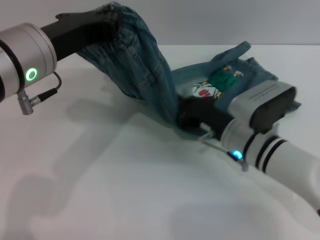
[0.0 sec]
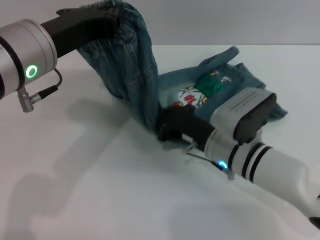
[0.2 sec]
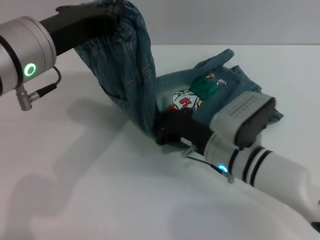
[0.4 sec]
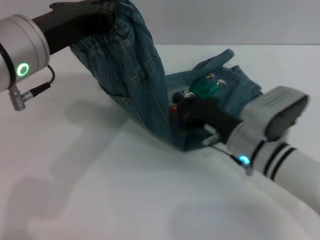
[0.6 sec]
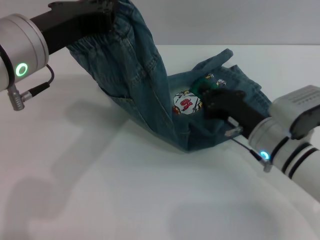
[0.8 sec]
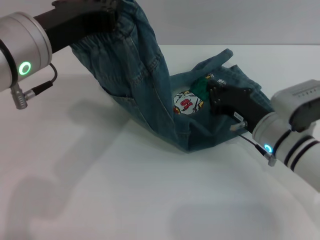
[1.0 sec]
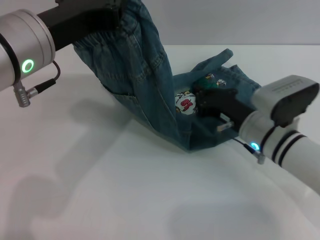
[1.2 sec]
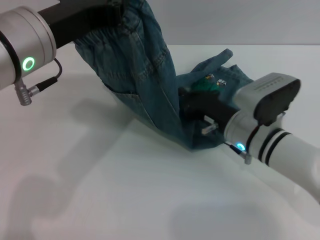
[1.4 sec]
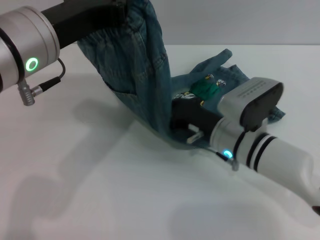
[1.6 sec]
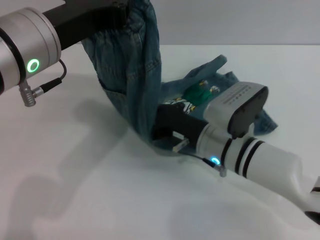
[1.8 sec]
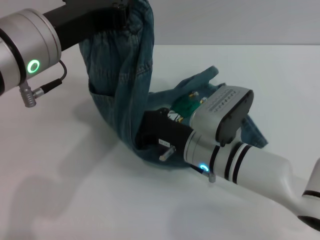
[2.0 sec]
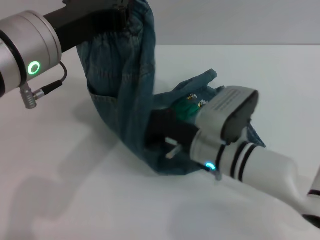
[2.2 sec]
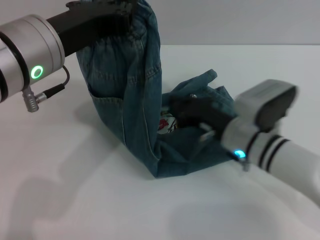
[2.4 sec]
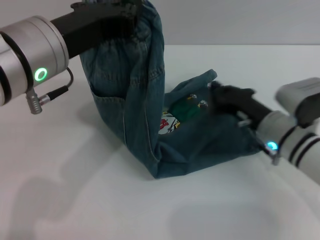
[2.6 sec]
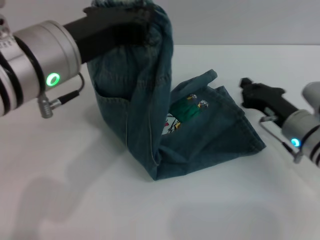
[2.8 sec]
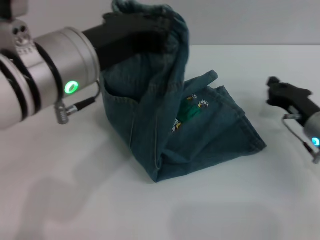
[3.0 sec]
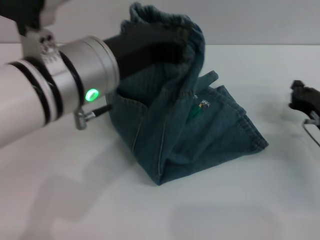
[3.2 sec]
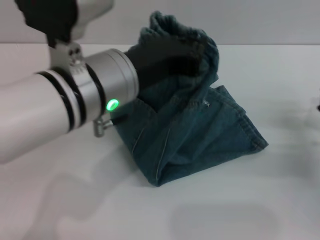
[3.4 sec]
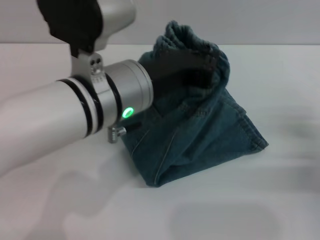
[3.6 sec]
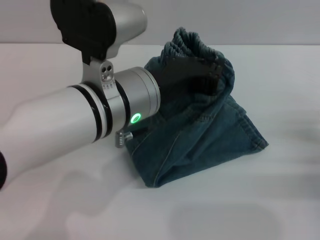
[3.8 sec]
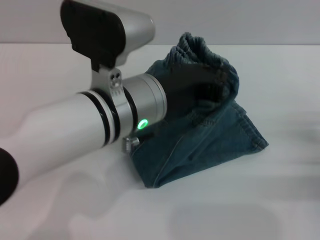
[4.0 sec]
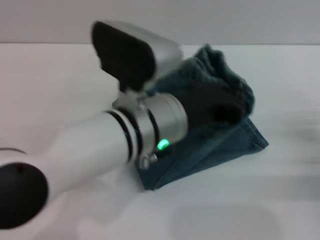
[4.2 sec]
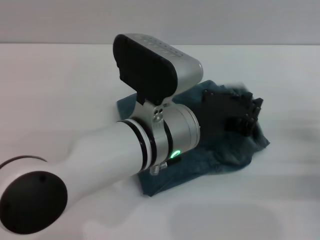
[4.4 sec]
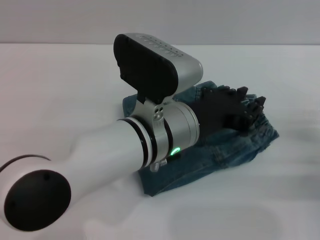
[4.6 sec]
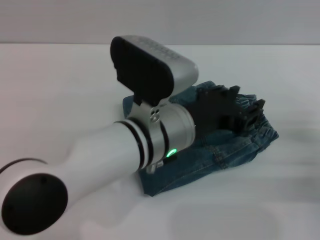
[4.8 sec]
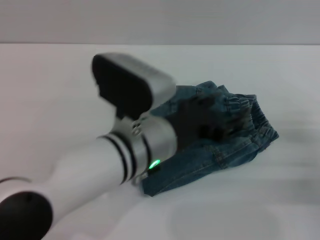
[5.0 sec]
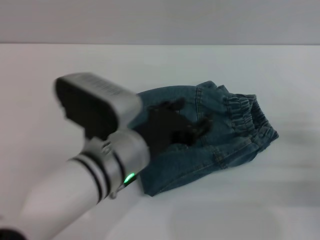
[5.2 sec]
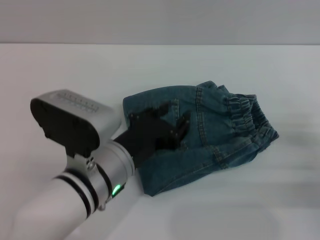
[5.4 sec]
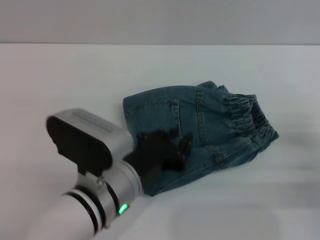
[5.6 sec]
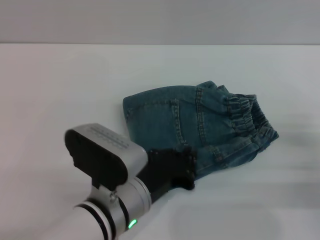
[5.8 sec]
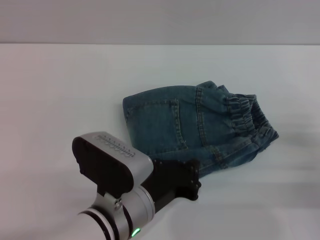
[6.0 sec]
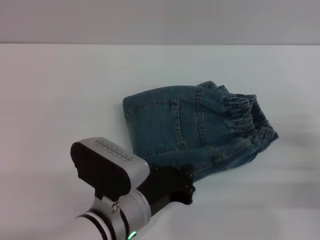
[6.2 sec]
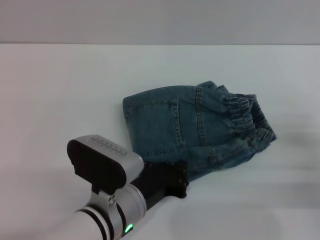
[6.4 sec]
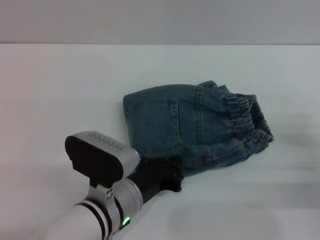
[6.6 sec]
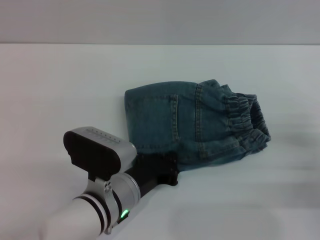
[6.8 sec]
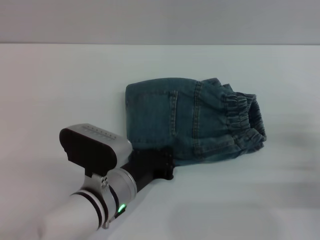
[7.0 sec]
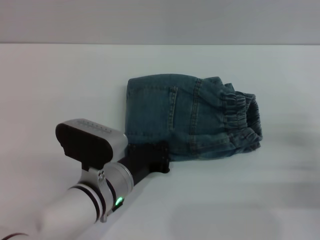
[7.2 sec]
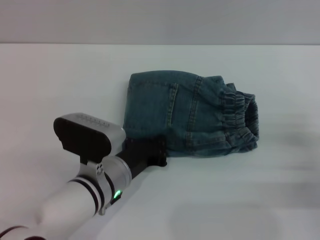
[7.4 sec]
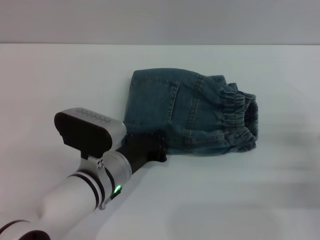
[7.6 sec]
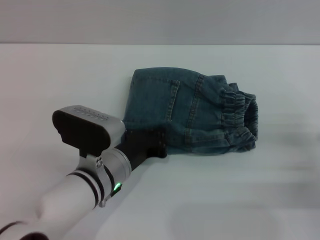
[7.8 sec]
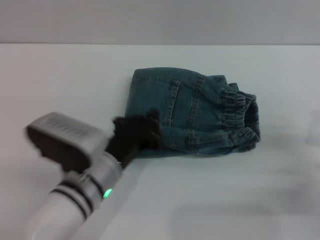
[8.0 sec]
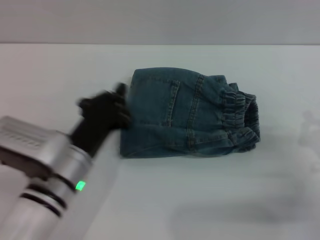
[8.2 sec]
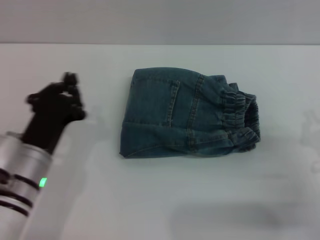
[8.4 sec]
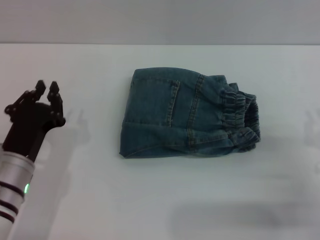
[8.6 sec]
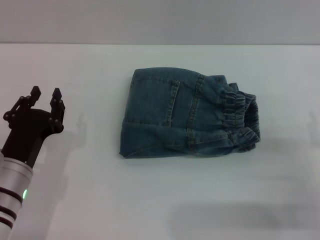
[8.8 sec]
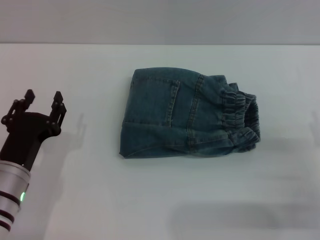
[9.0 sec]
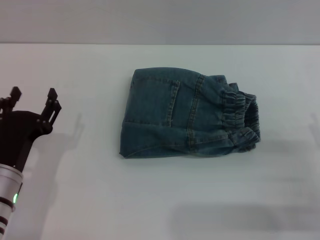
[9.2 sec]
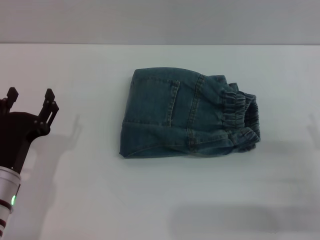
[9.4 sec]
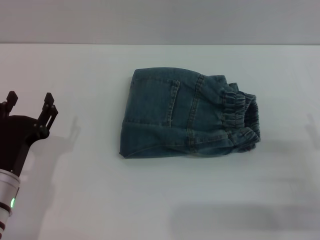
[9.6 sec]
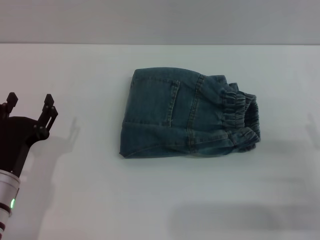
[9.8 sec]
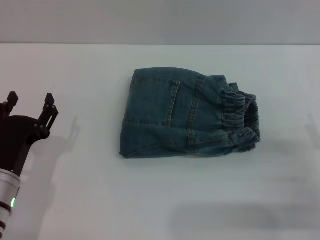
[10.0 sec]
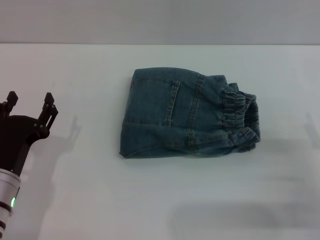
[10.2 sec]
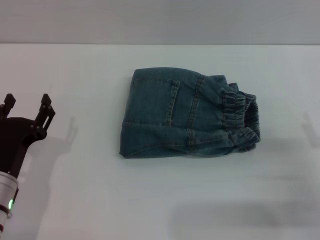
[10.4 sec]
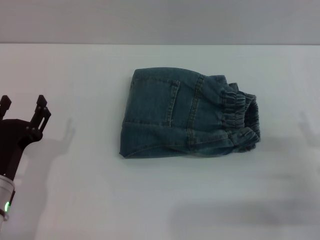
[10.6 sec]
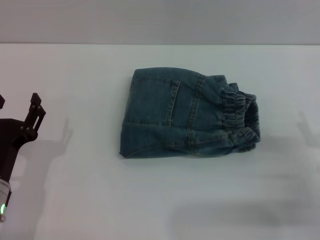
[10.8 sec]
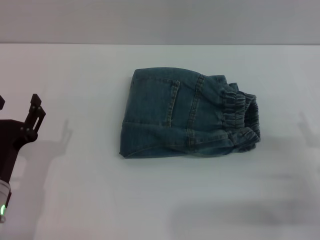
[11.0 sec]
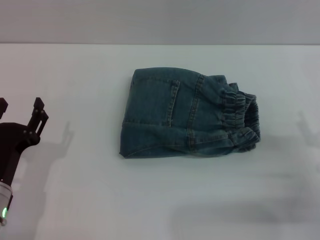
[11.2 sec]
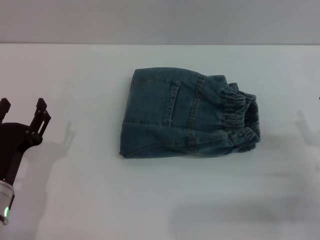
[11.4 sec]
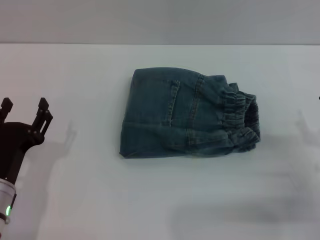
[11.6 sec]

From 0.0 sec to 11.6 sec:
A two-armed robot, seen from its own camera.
Step, from 0.0 sec to 4.8 sec: Fold the pants from left to right with the left gripper.
Step, from 5.0 sec to 8.0 sec: Place the folded trousers onto the center area with the left grippers.
From 0.0 sec to 1.4 sec: There are only small adjustments of the grippers.
From 1.4 sec to 2.8 sec: The right gripper shifts roughly 10 cm to the right.
From 2.8 sec to 4.4 sec: The right gripper travels to the right and backward by some 15 cm, while the left gripper goes some 15 cm to the right and downward.
From 4.4 sec to 5.8 sec: The left gripper heads downward, to the left and backward, covering approximately 10 cm, and opens and closes again.
From 5.8 sec to 7.2 sec: The left gripper shifts by approximately 5 cm.
From 7.2 sec to 8.8 sec: The left gripper goes some 10 cm to the left.
From 8.8 sec to 10.2 sec: The left gripper opens its fingers.
From 10.2 sec to 11.6 sec: There are only small adjustments of the grippers.

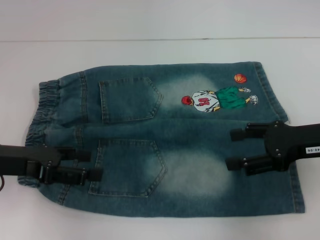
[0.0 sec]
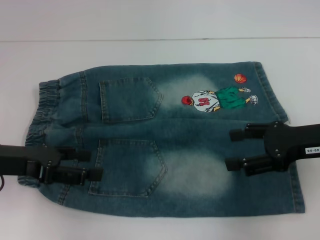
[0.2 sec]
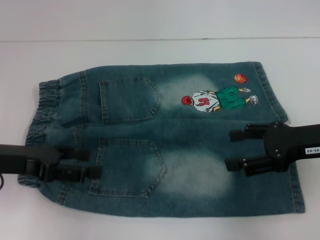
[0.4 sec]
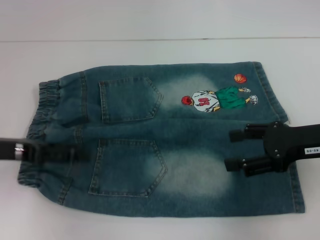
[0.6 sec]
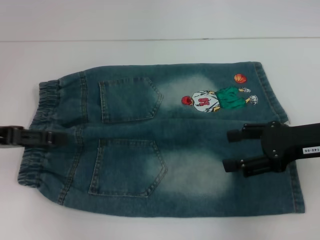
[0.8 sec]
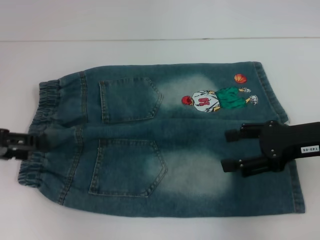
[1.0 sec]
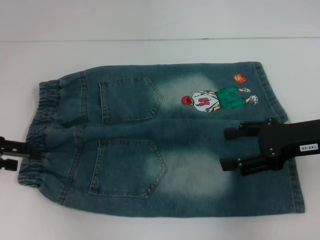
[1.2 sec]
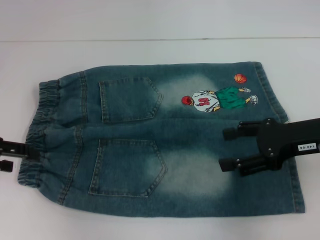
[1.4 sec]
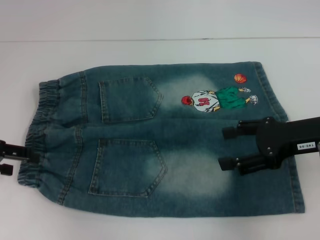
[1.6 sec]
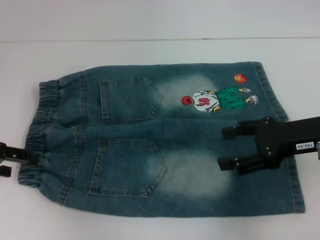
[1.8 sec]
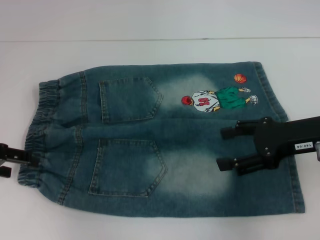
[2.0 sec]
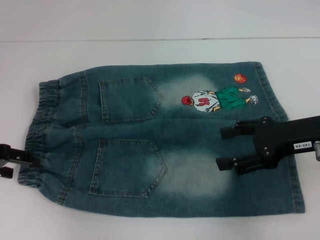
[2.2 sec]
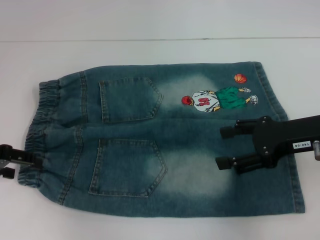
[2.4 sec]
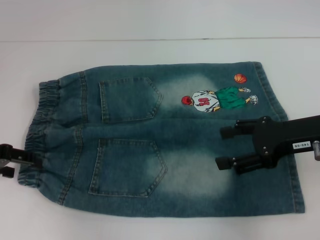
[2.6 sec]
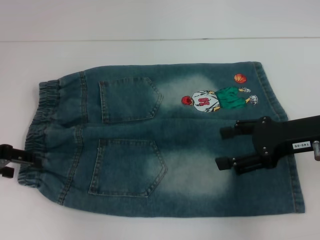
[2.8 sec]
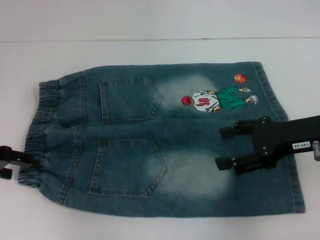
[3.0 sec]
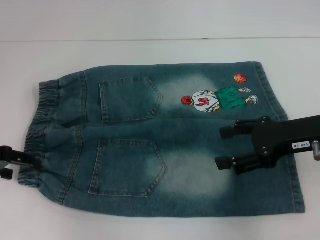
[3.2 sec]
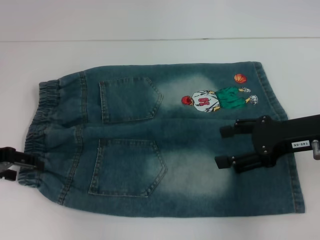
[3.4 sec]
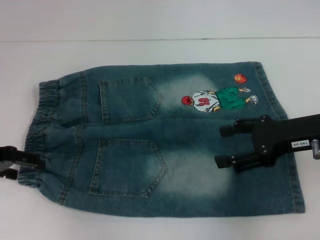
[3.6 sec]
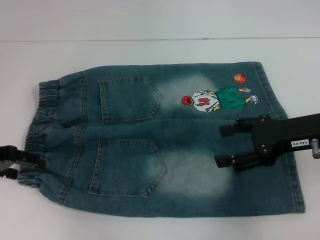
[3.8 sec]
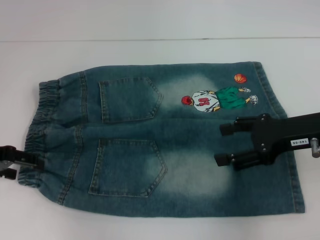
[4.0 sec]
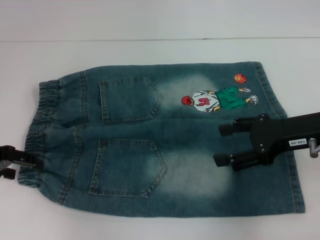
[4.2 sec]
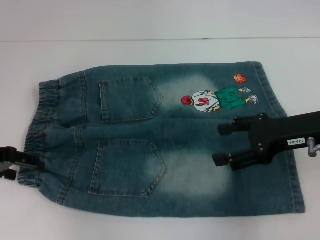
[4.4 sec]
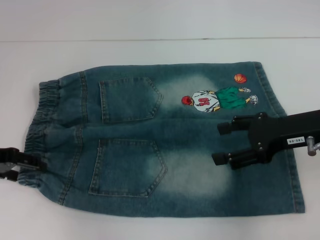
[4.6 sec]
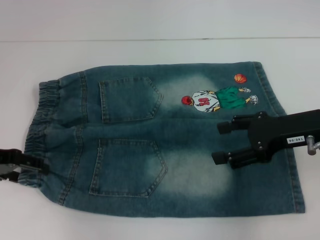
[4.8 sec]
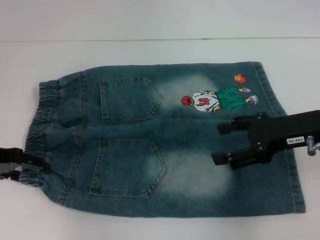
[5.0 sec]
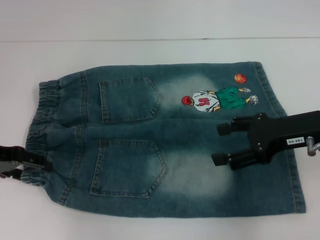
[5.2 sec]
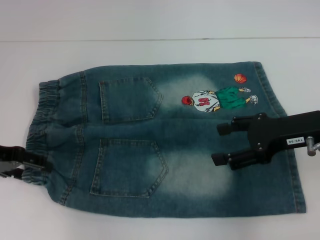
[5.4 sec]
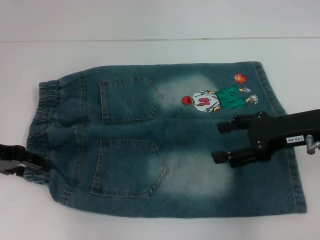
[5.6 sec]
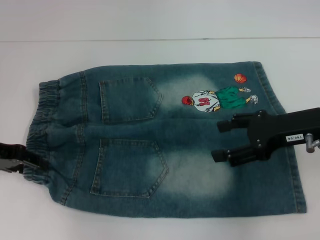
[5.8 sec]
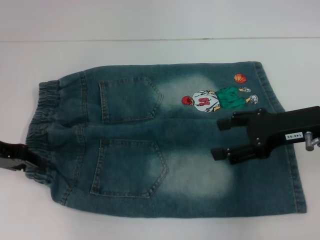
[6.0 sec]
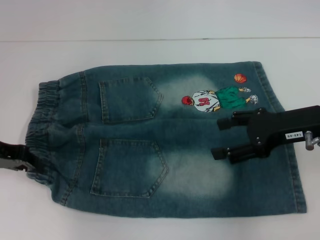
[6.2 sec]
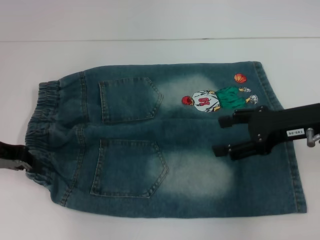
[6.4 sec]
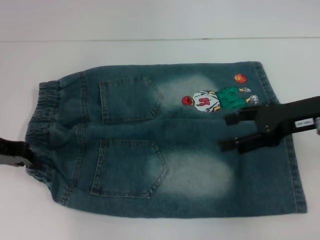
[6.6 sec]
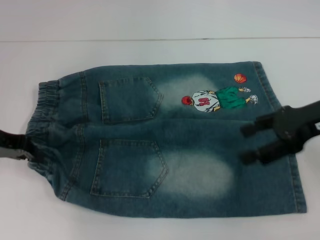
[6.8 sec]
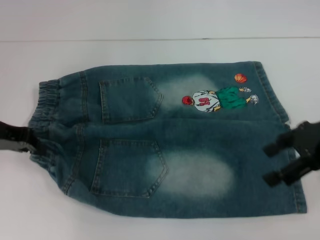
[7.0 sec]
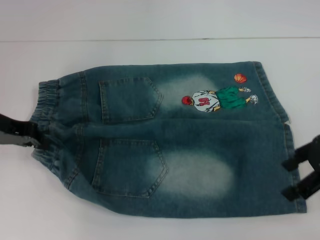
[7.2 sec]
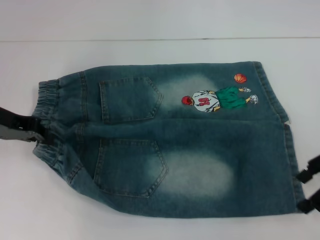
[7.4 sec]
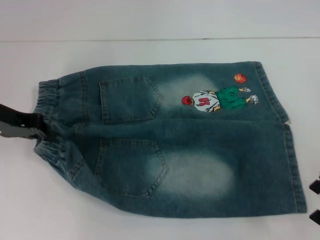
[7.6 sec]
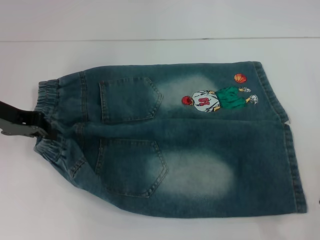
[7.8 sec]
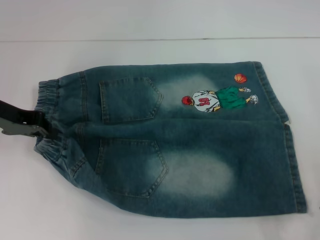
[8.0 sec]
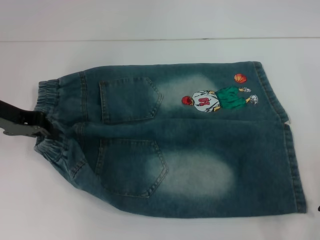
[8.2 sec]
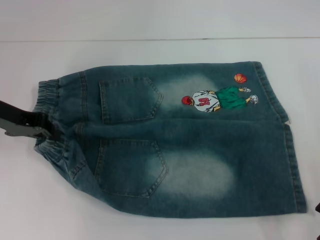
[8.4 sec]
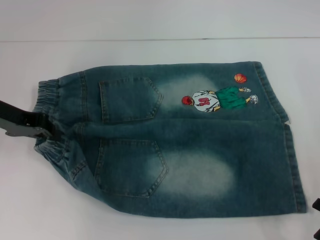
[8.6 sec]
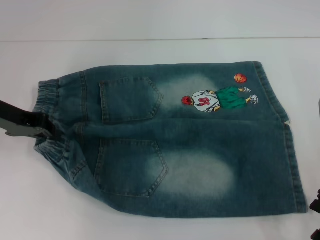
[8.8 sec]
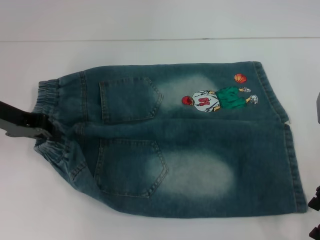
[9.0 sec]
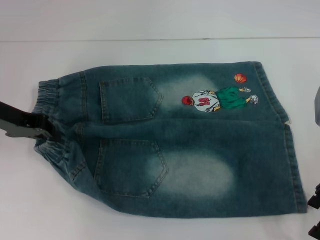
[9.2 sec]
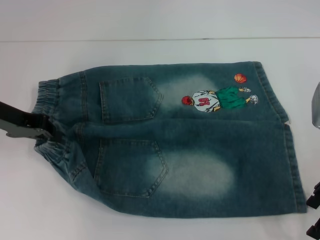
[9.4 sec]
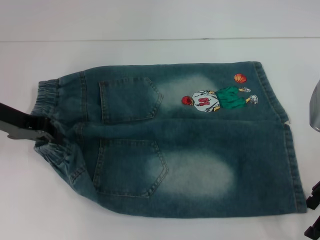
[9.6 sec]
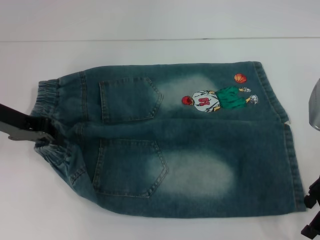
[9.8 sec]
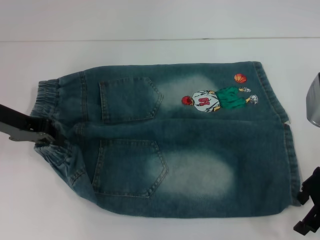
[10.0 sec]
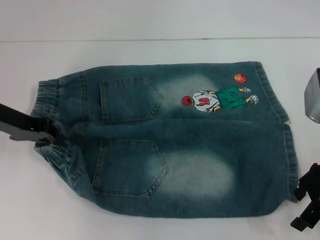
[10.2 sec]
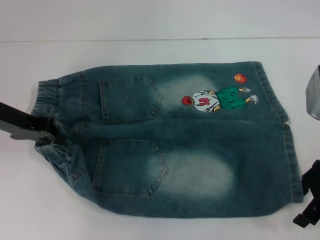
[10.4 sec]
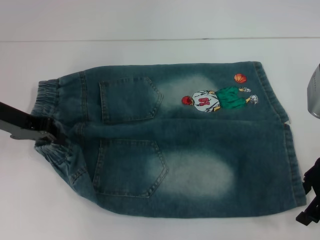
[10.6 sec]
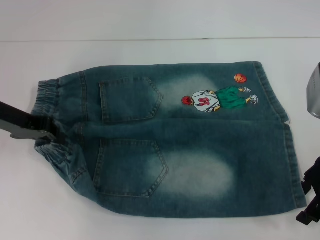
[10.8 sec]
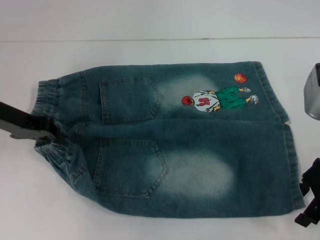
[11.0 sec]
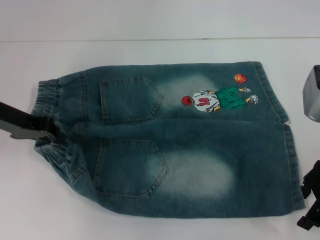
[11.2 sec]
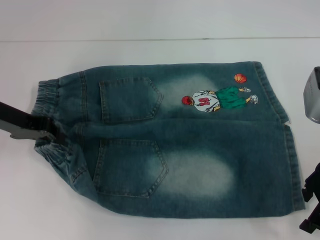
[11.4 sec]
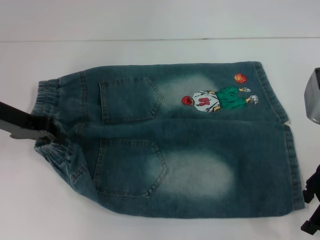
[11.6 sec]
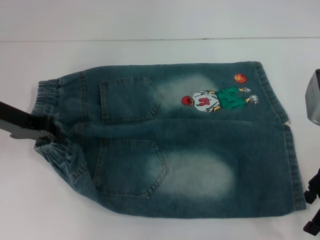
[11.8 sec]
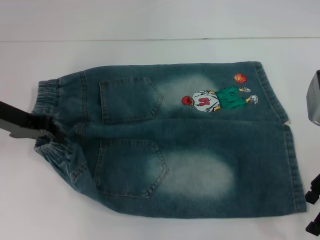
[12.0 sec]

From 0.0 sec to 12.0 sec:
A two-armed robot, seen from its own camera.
Step, from 0.0 sec to 6.4 sec: Hold the lower left waistband with your left hand.
From 0.0 sec to 1.6 sec: The left gripper moves to the left, roughly 5 cm.
From 1.6 sec to 3.0 sec: The grippers move only a little.
From 3.0 sec to 4.4 sec: Neither gripper changes place.
From 4.4 sec to 6.0 sec: The left gripper closes.
From 6.0 sec to 7.6 sec: The left gripper closes; the right gripper moves to the right, roughly 5 cm.
From 7.6 sec to 10.4 sec: The grippers stay close to where they were, moving slightly.
From 10.4 sec to 12.0 sec: Neither gripper changes place.
